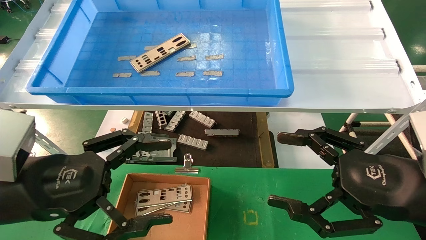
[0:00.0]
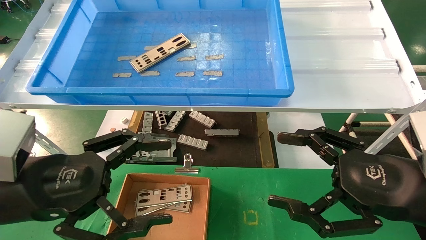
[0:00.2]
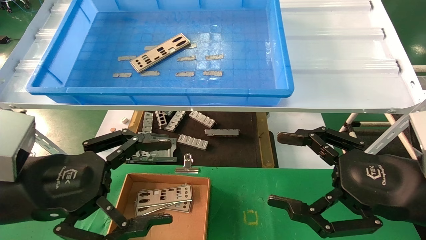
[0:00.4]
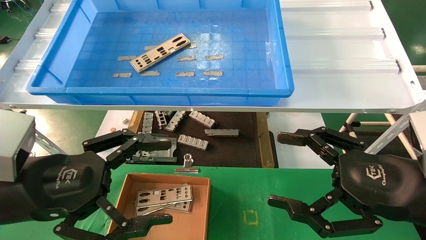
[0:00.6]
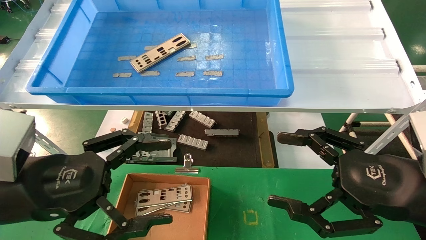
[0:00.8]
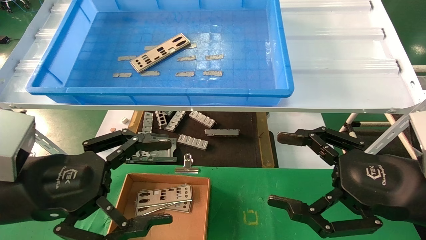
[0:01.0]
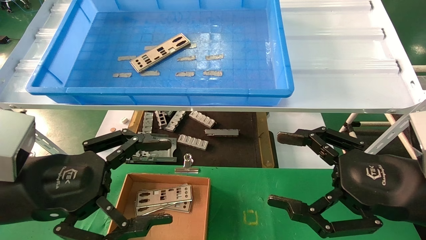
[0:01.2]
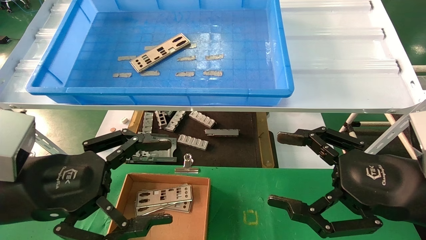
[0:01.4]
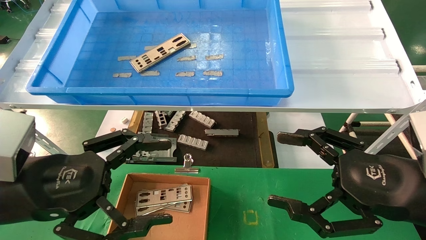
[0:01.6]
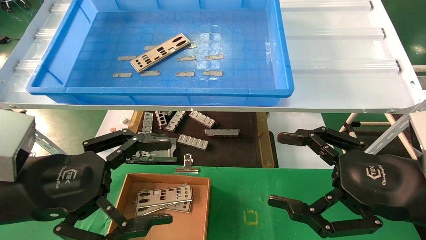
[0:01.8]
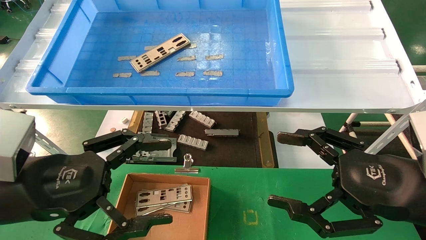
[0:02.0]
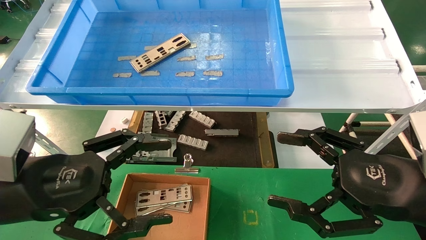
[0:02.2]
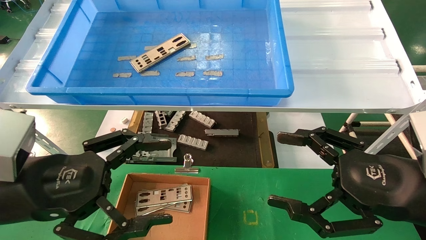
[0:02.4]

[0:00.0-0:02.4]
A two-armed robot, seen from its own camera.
Task of the whole recording: pick up the parts on the tray and put them in the cardboard box.
0:00.0 to 0:02.4: Both grippers stay about where they are.
